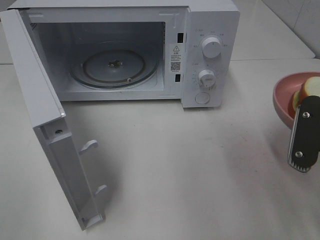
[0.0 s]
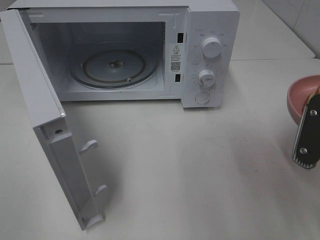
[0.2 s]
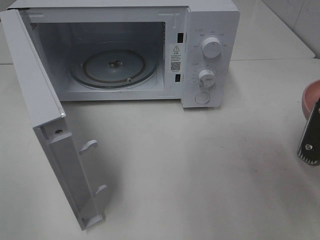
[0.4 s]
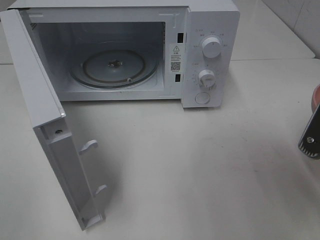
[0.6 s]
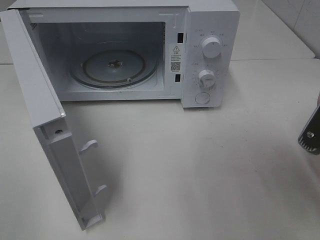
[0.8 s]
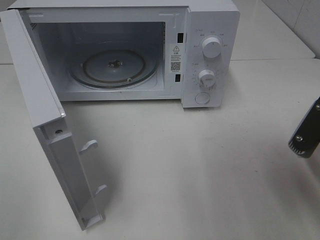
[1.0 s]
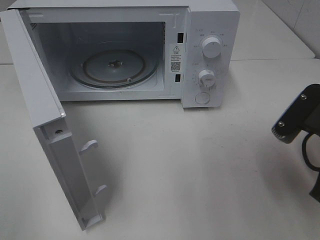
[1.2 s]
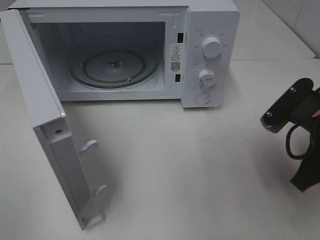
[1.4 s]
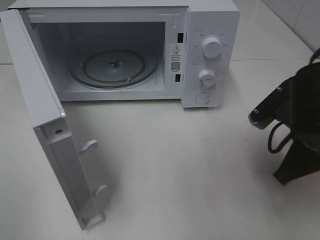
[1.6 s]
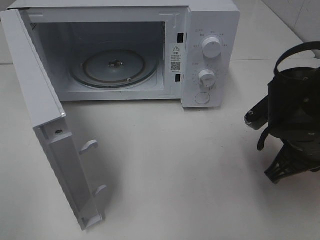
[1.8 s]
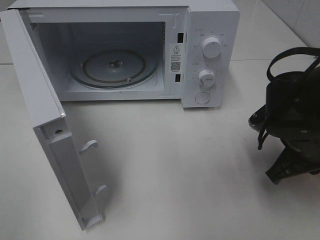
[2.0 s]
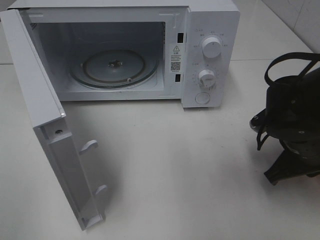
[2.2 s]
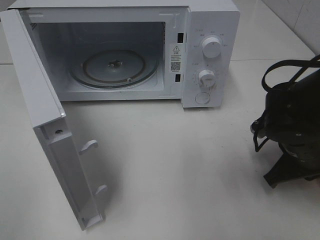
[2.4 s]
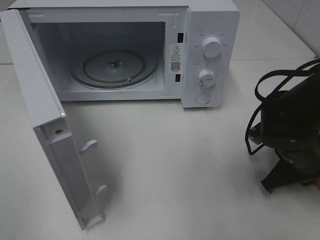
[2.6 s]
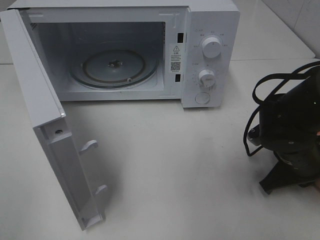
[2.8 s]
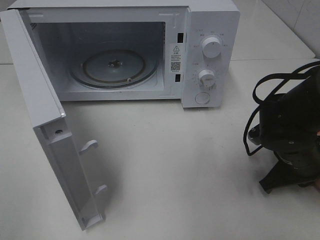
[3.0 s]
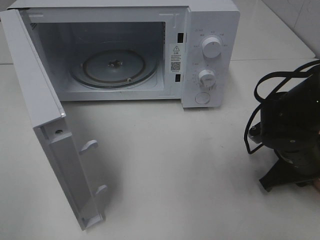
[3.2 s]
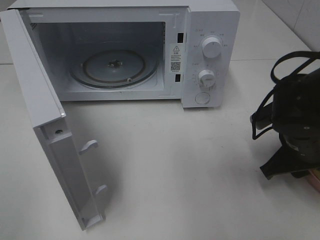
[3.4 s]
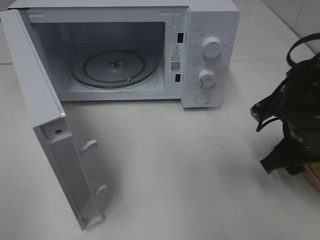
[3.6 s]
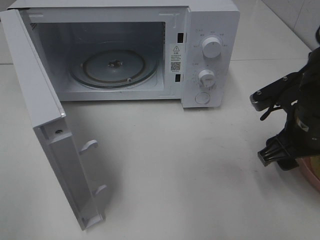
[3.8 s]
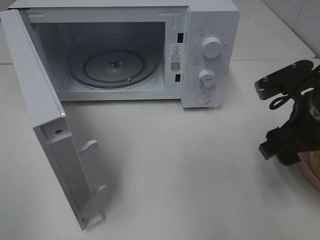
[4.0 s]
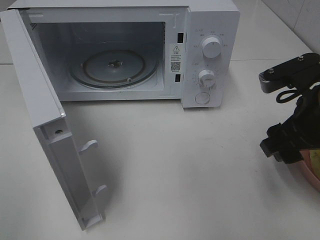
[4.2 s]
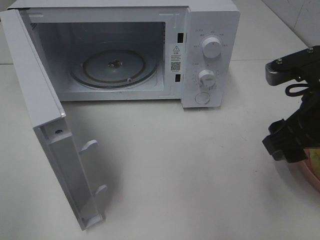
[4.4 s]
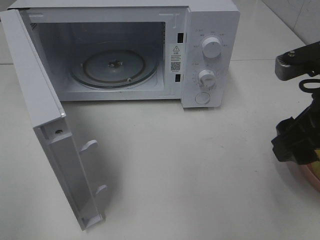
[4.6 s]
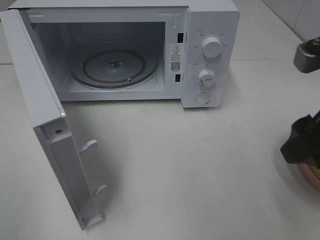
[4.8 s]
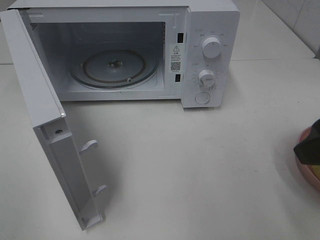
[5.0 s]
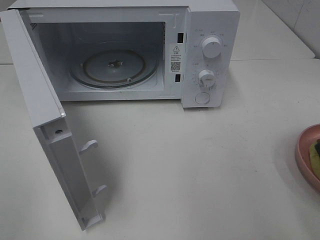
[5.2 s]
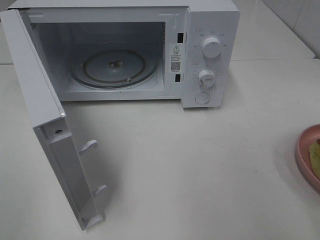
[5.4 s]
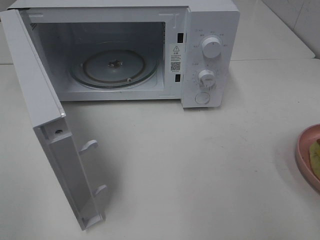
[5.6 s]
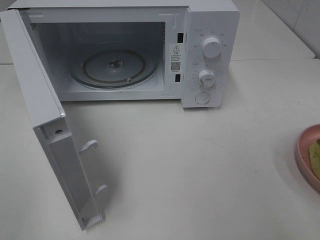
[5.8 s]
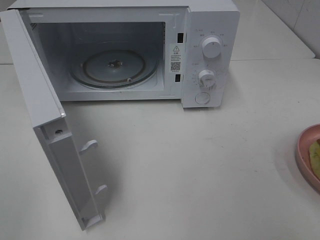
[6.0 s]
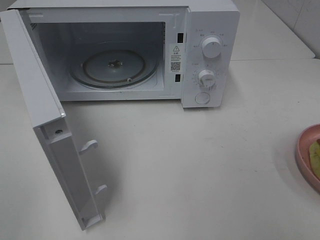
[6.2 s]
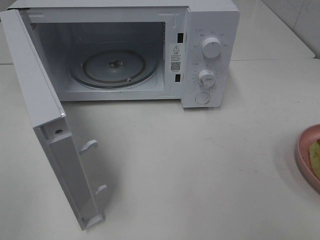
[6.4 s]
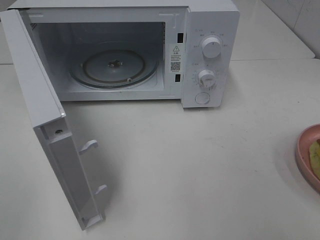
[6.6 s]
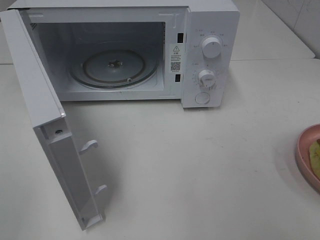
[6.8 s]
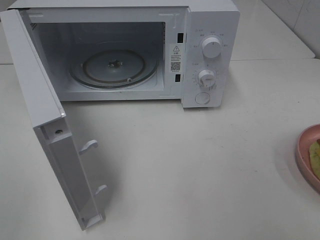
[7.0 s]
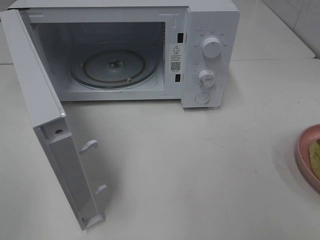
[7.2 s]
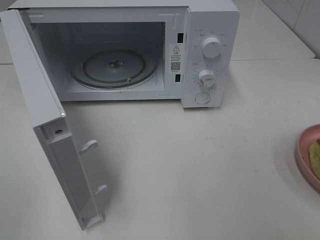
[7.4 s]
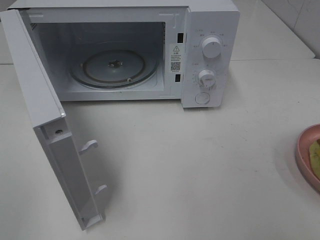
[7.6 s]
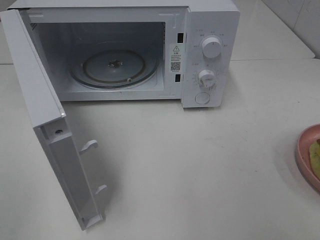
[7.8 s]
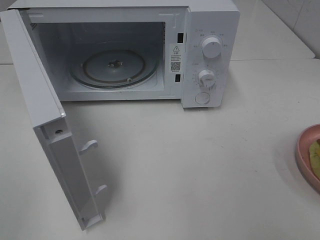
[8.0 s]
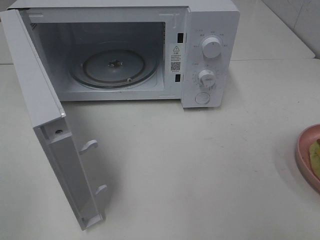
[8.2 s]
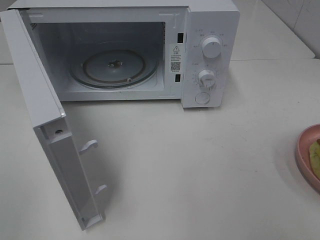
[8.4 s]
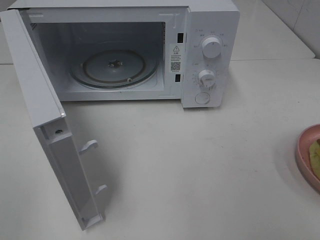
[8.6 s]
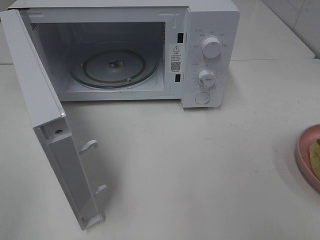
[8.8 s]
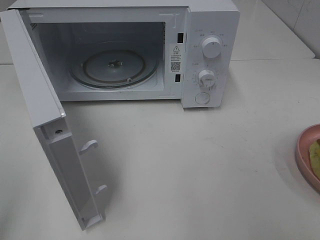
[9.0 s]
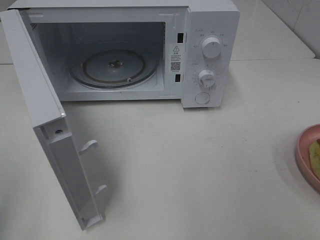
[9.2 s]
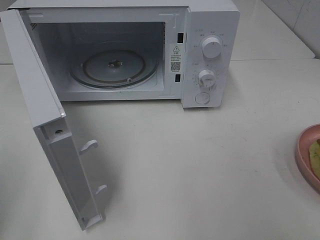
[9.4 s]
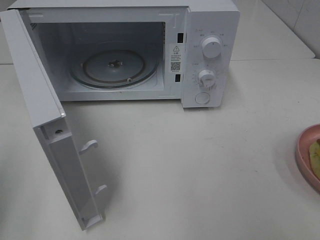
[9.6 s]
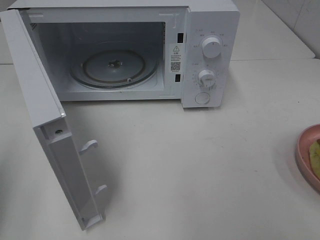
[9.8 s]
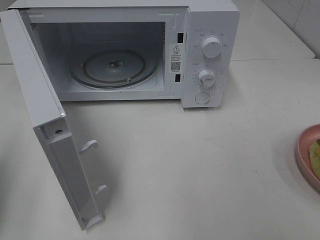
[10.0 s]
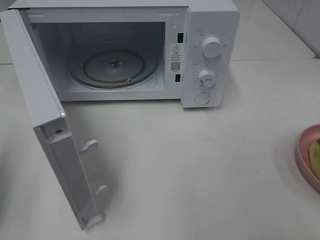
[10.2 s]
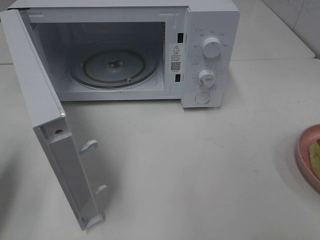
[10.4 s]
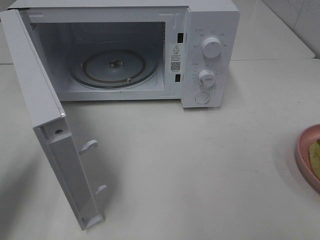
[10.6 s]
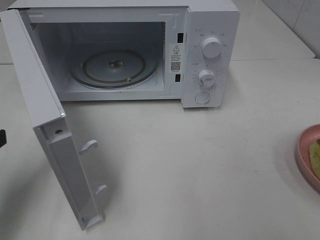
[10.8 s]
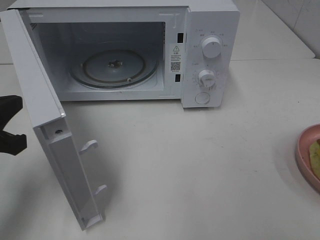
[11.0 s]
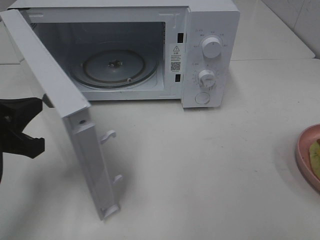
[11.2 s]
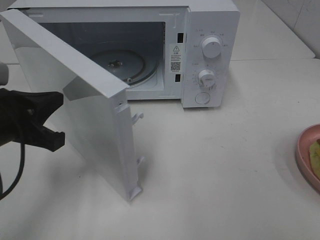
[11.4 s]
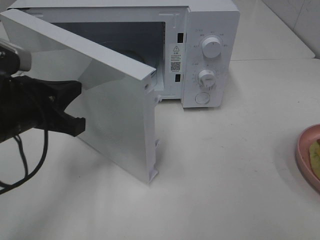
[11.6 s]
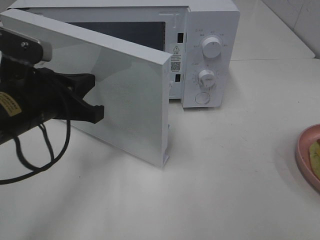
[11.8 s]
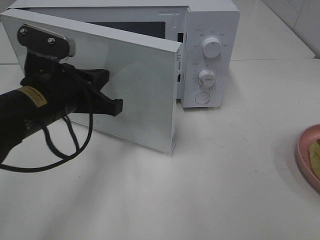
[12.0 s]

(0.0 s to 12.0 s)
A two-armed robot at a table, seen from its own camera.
Task of the whole recording: Heat Sandwich.
Step, 0.0 s - 4.8 s: Right hand: place the plate on the table.
0.0 s - 1.6 s: The right gripper heads forward, covering about 5 cm.
1.6 s - 3.0 s: The right gripper is displaced downward by some 10 cm.
3.0 s - 4.4 s: The right gripper travels upward by roughly 15 cm, and opens up.
4.4 s - 6.0 s: The right gripper heads backward and to the right, covering roughly 15 cm.
9.0 s - 10.4 s: The left gripper travels forward and downward by roughly 15 cm, and closes.
10.4 s - 12.0 s: The left gripper moves to the right and forward, about 20 cm.

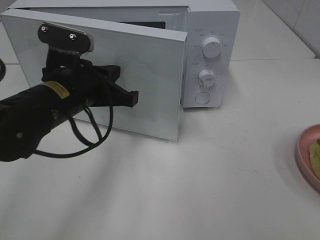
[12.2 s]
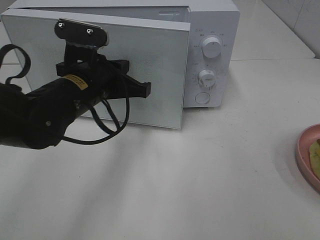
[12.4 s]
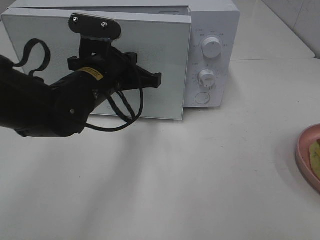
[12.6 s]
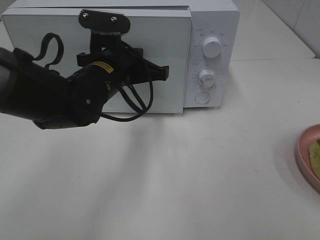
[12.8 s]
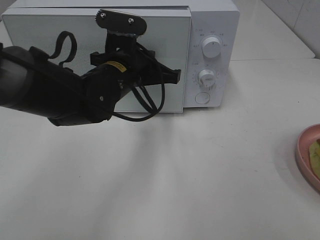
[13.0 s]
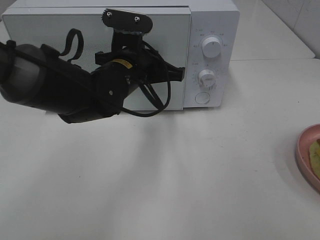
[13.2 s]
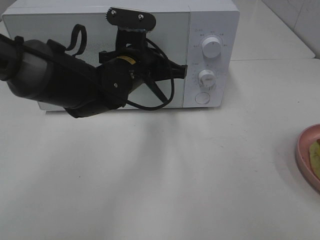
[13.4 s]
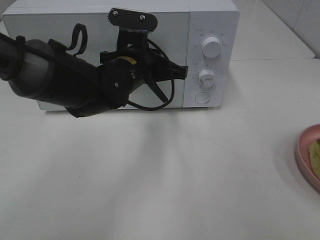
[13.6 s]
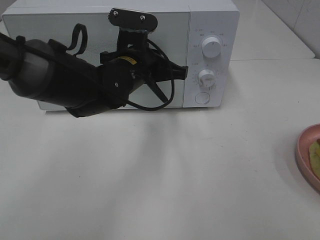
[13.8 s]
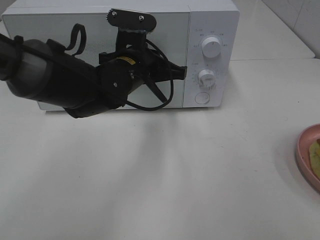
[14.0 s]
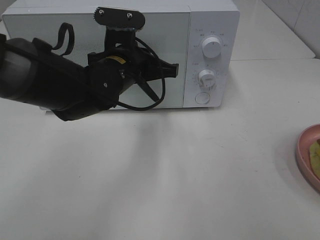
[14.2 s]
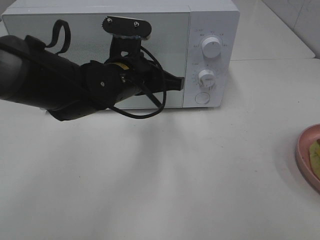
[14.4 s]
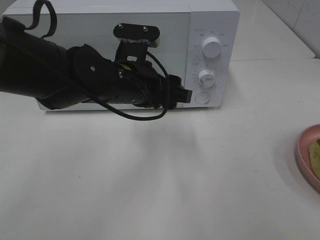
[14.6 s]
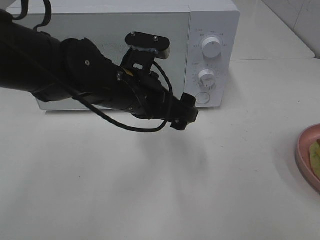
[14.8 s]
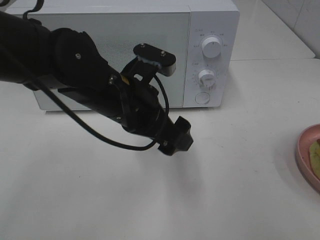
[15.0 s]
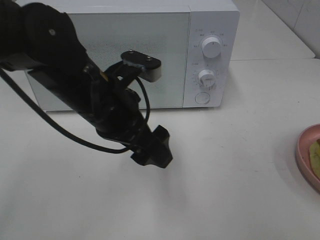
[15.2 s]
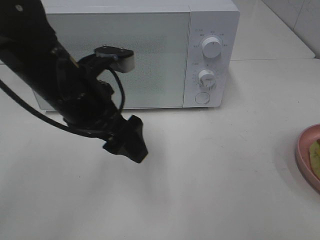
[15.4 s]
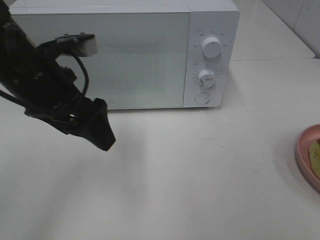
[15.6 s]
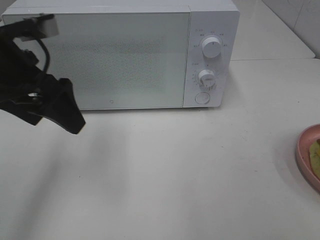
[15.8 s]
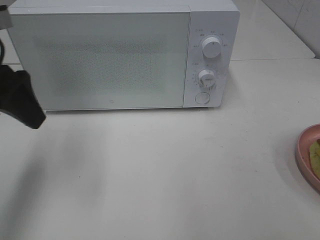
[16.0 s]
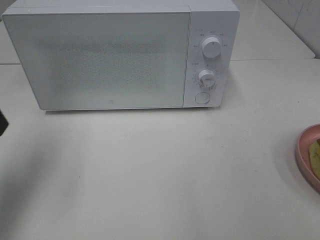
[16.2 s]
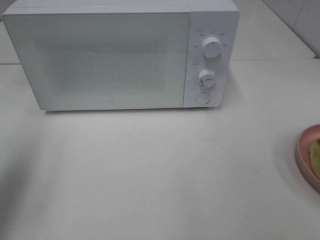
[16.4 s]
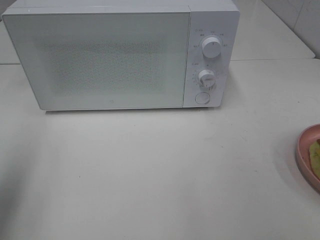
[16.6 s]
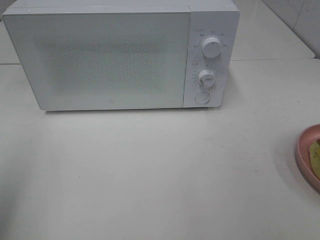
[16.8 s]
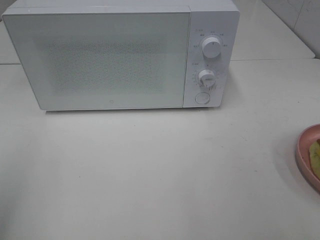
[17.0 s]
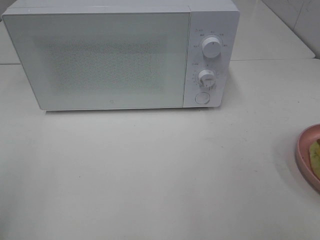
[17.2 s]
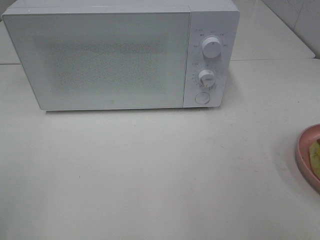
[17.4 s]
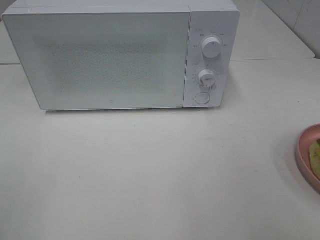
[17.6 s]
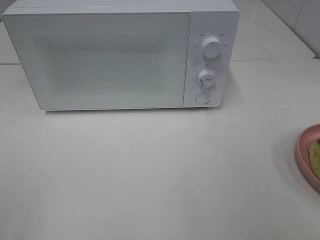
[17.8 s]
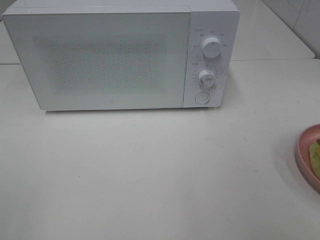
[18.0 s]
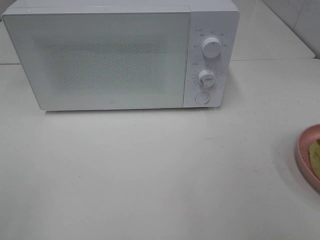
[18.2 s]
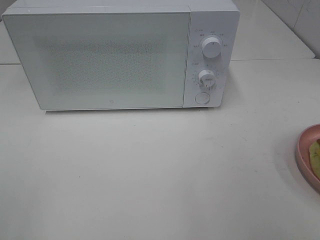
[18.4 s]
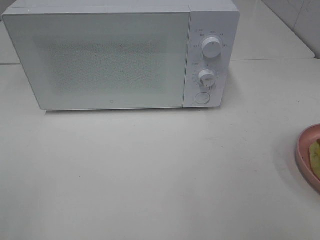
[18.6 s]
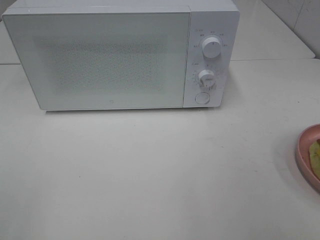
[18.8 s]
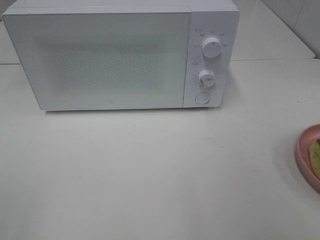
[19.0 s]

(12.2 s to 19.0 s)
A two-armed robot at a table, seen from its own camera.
Task of the whole recording: Heat Sandwich.
Step, 12.2 s - 14.6 s: Left hand: close the microwave door.
12.2 s - 13.6 s: The left gripper shifts approximately 10 cm to the right and forward.
13.6 s - 15.0 s: The left gripper shifts roughly 10 cm backward, and opens up.
15.0 s - 16.2 s: The left gripper travels to the left by some 25 cm.
16.2 s - 17.6 s: The left gripper heads backward, covering roughly 20 cm.
